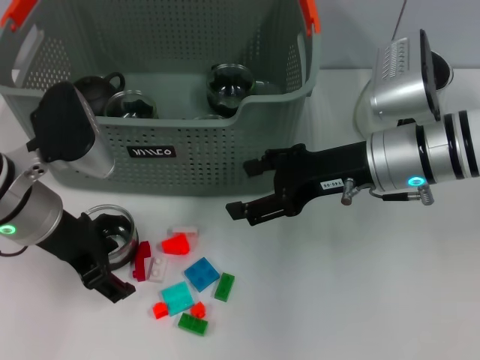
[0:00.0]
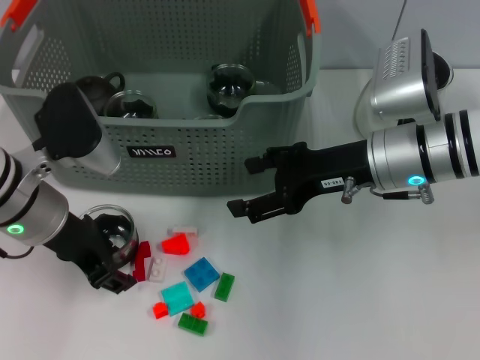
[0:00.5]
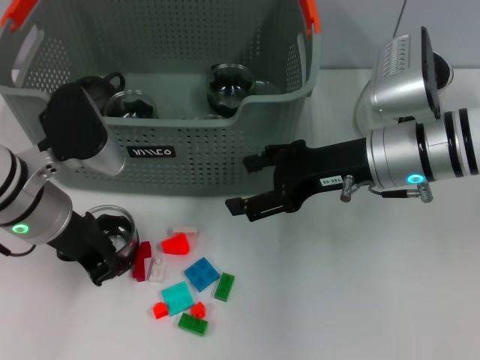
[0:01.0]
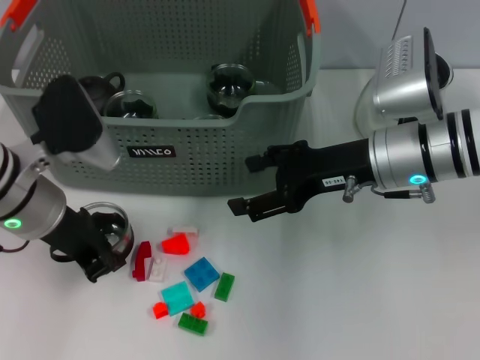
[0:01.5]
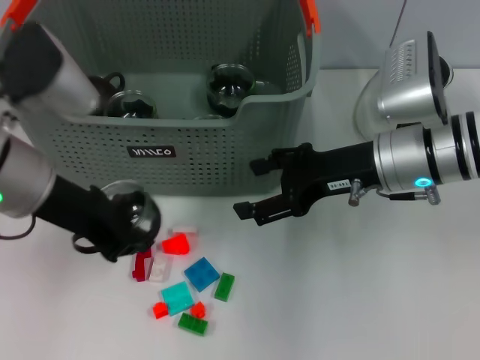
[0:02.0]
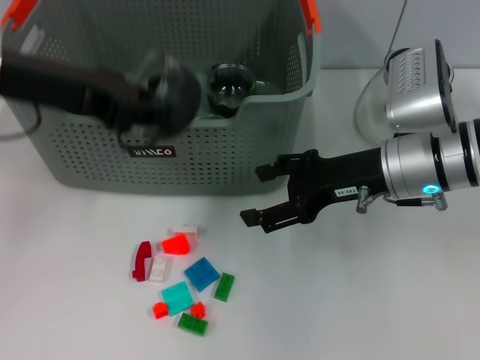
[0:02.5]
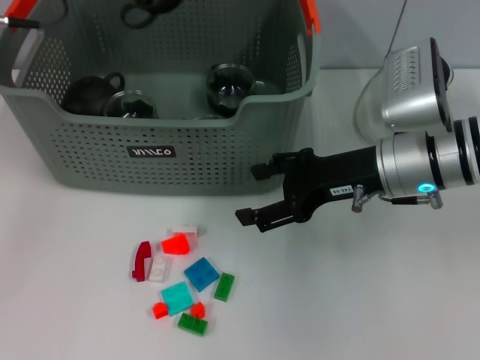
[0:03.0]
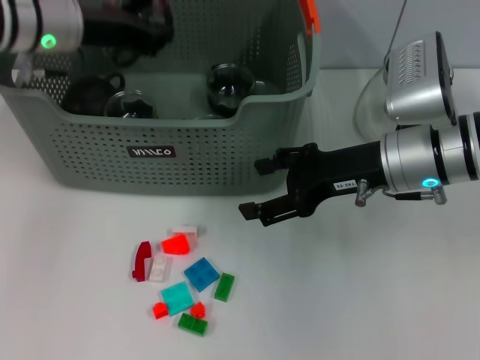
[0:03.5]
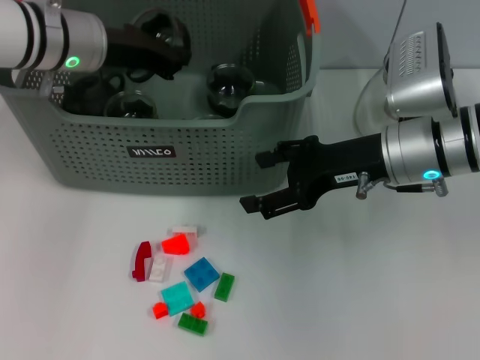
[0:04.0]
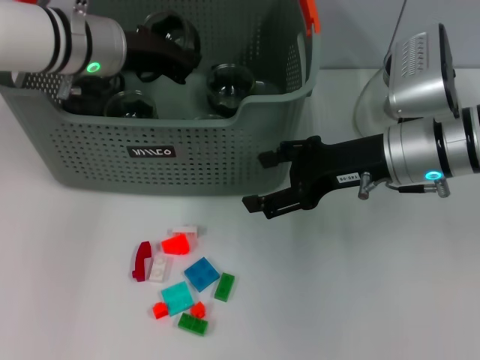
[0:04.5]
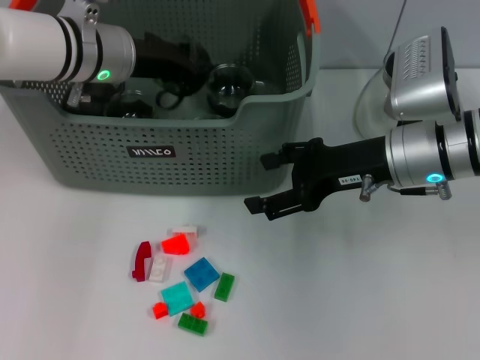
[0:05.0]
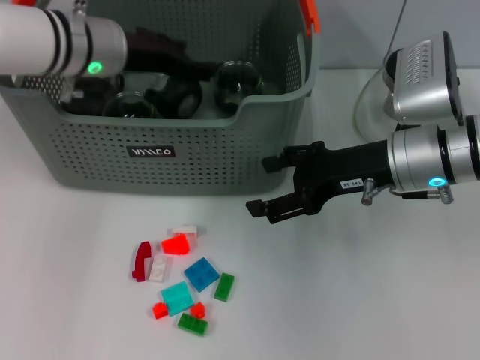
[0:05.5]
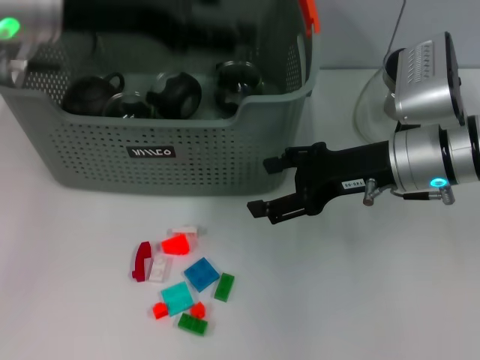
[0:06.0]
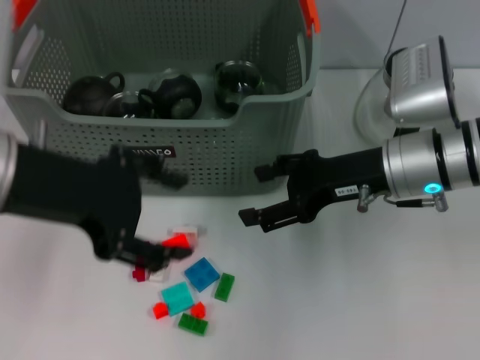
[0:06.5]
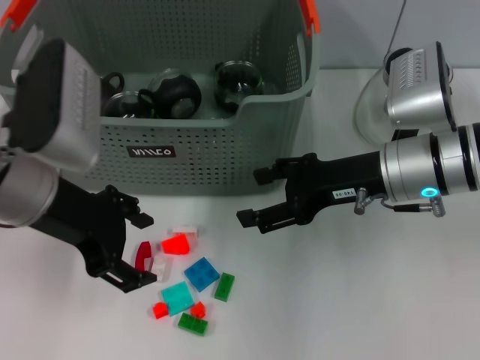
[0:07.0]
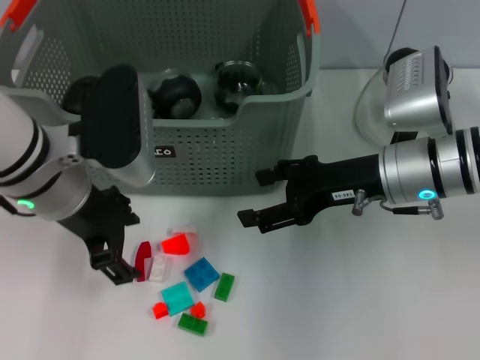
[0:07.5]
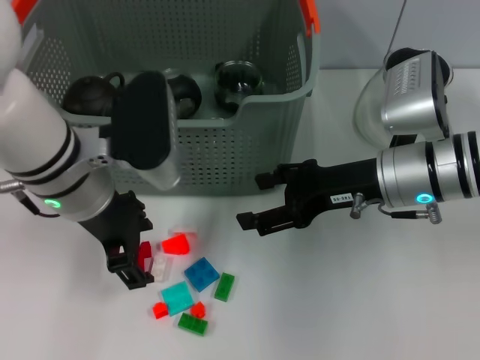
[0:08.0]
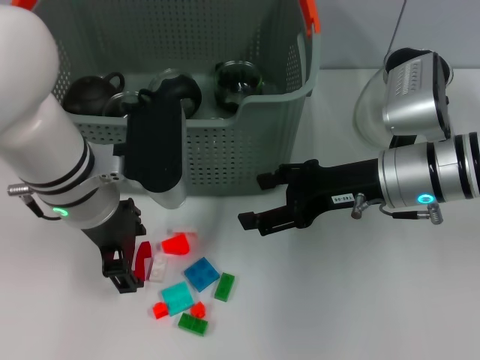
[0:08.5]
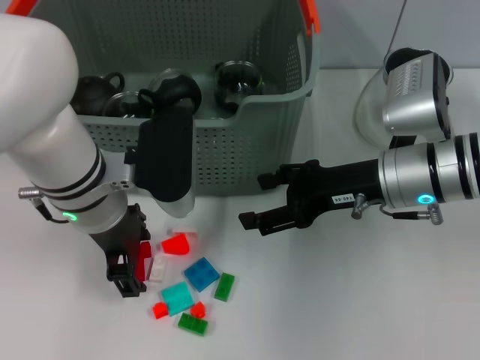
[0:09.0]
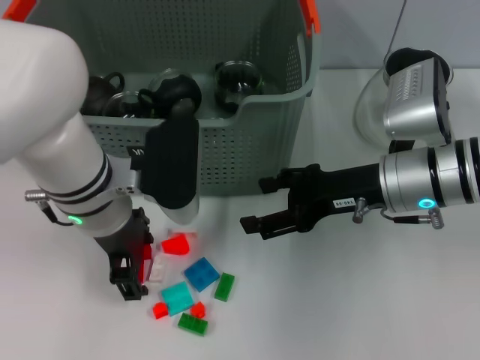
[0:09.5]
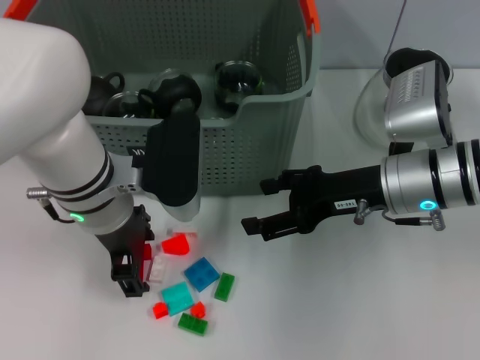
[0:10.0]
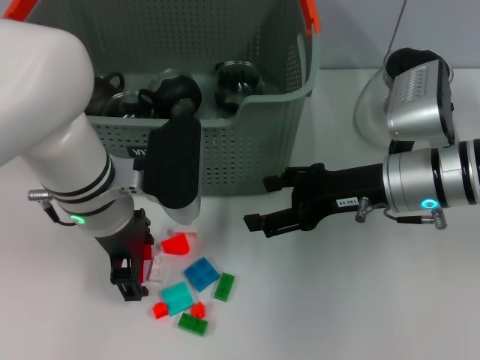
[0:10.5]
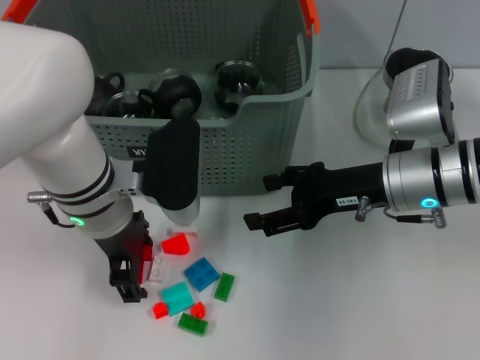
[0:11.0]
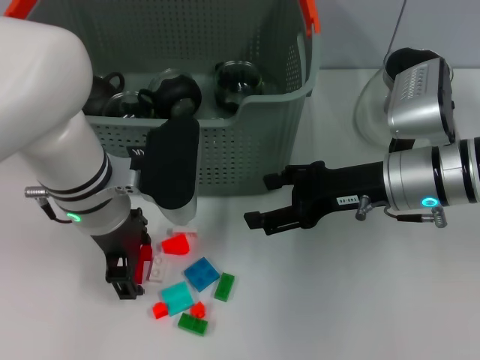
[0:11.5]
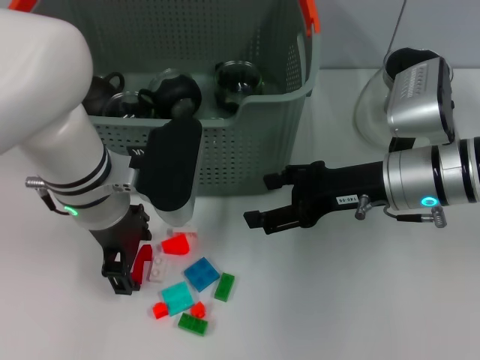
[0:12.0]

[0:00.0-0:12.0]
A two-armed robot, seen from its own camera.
Task of the whole recording: pick up the teacup on the table and place it into the storage bin, pick up the block on the table and place it into the storage bin.
Step, 0:01.5 to 0:05.5: Place the cup in the storage box with left gripper.
0:00.0 to 0:02.0: The left gripper travels upward by some 5 cm, and closes up.
0:02.0 to 0:04.0: The left gripper heads forward, covering some 15 cm.
0:04.0 to 0:06.0: The left gripper goes approximately 10 cm upward and backward, and opens its fingers.
0:06.0 to 0:08.0: The left gripper moves downward, roughly 10 cm.
0:10.0 to 0:12.0: The grippers stay close to where they were, moving slightly.

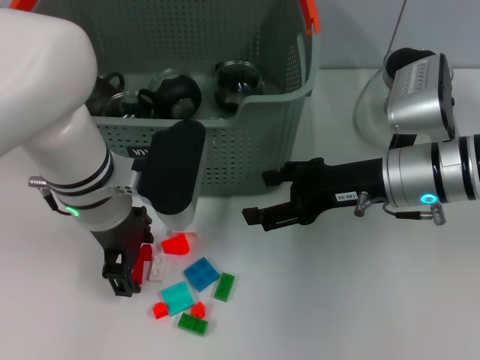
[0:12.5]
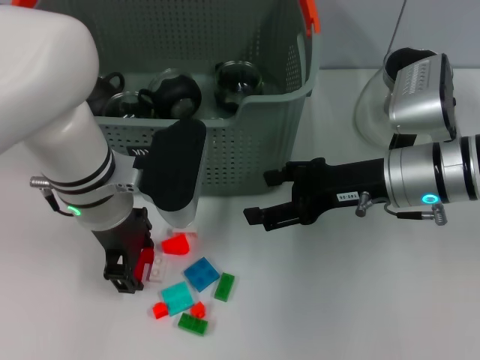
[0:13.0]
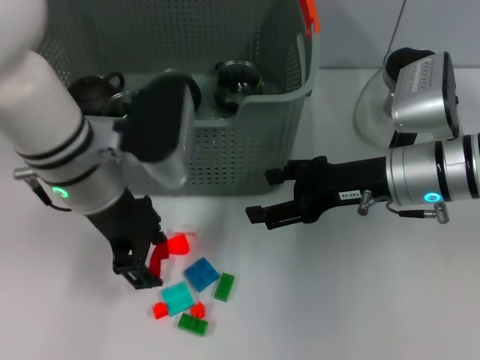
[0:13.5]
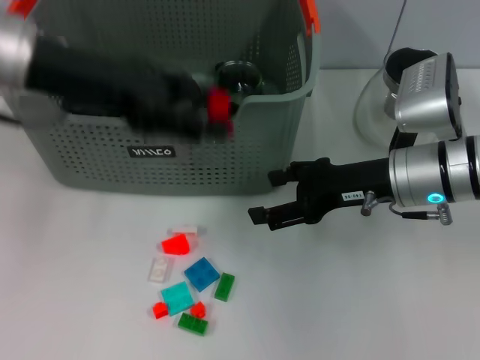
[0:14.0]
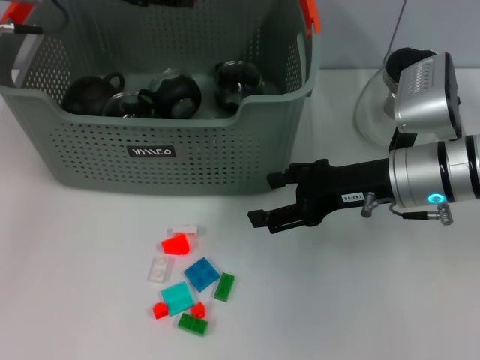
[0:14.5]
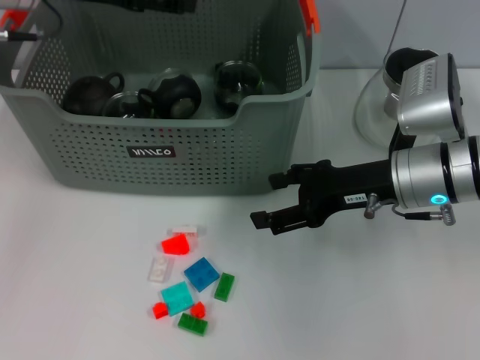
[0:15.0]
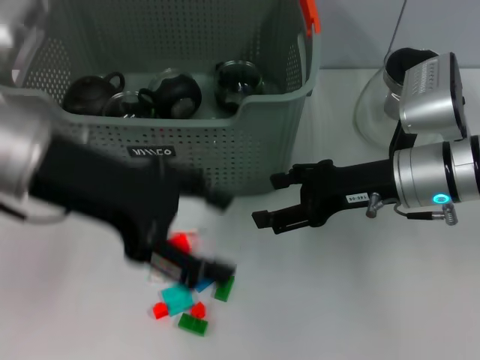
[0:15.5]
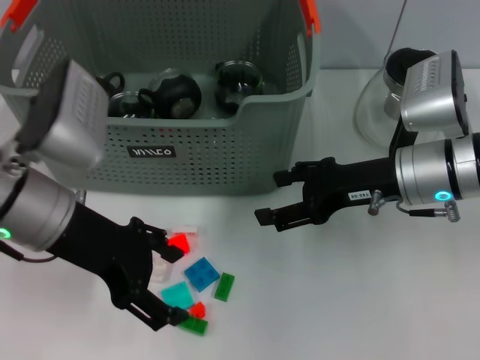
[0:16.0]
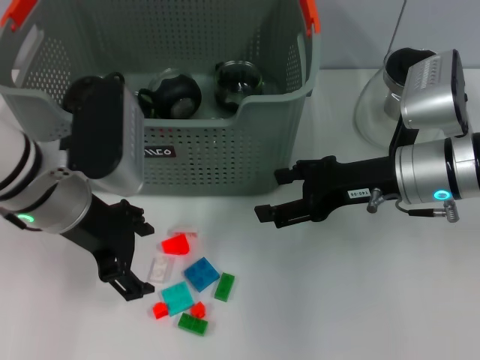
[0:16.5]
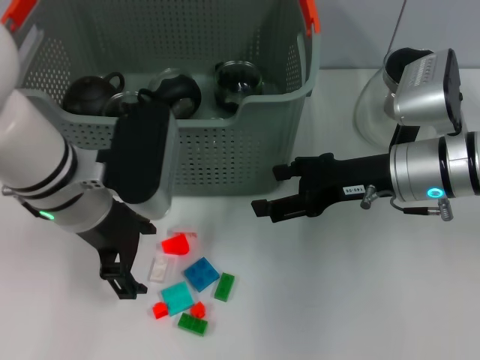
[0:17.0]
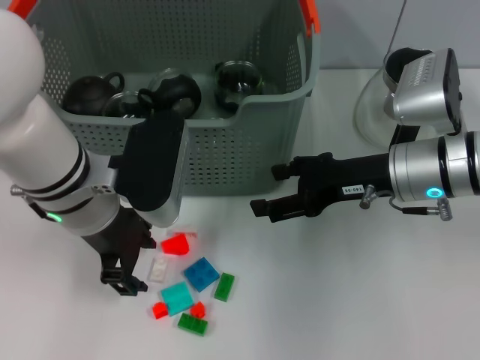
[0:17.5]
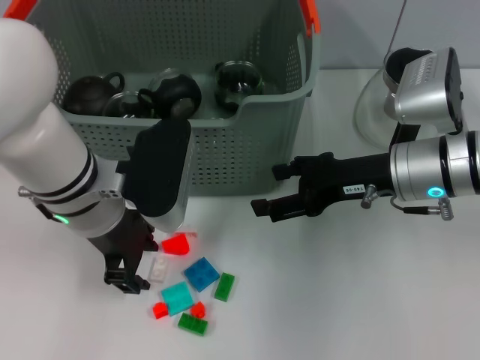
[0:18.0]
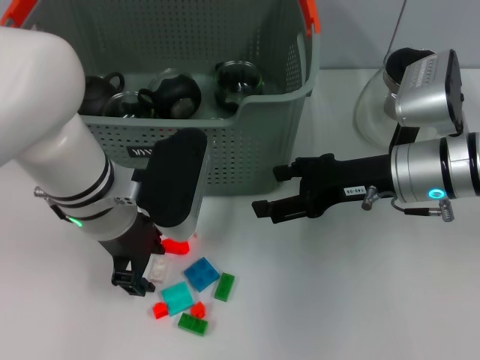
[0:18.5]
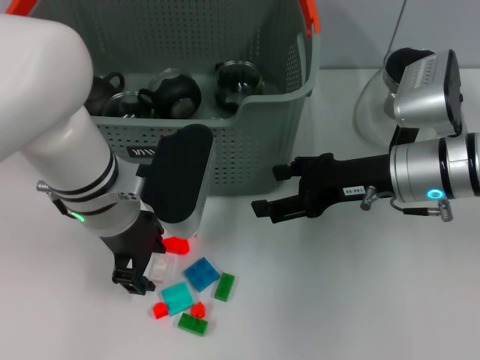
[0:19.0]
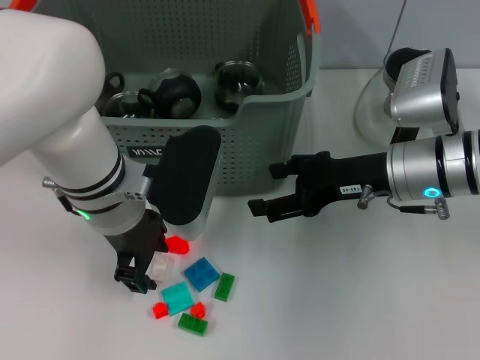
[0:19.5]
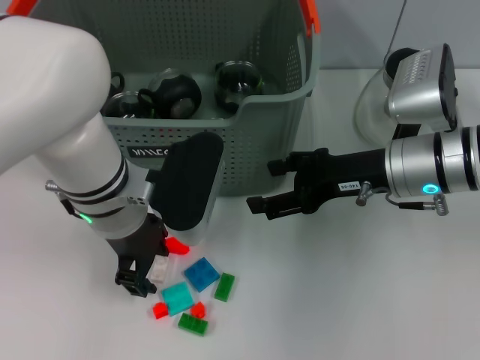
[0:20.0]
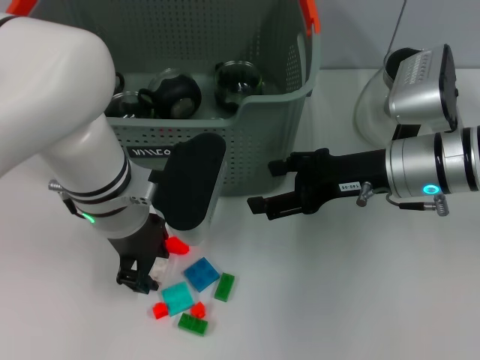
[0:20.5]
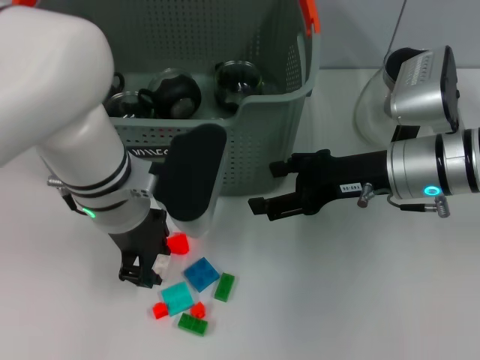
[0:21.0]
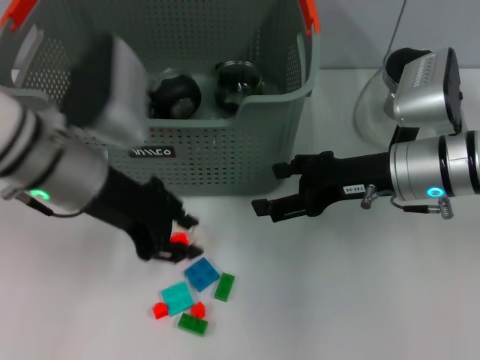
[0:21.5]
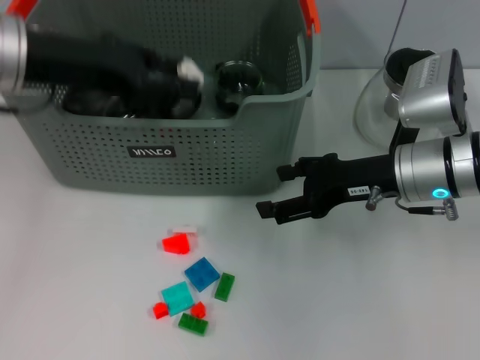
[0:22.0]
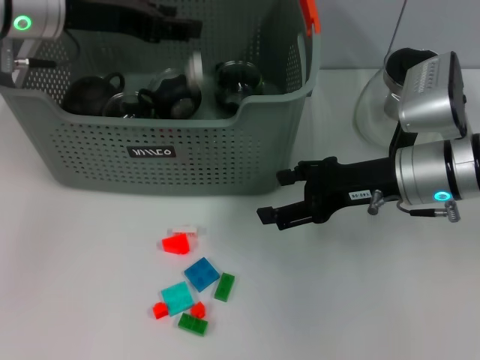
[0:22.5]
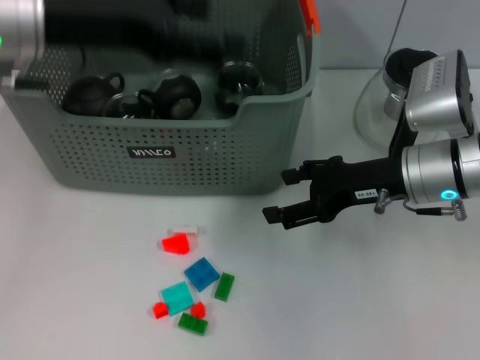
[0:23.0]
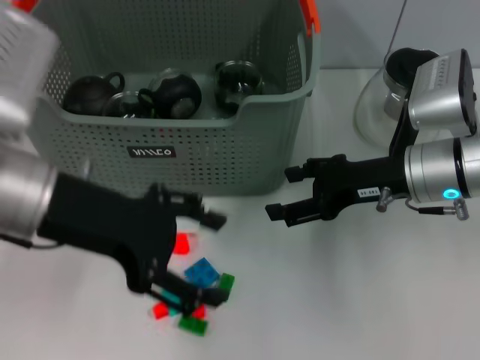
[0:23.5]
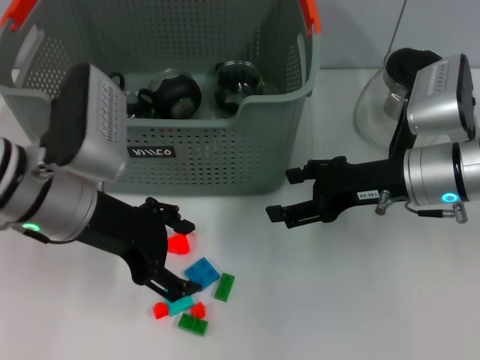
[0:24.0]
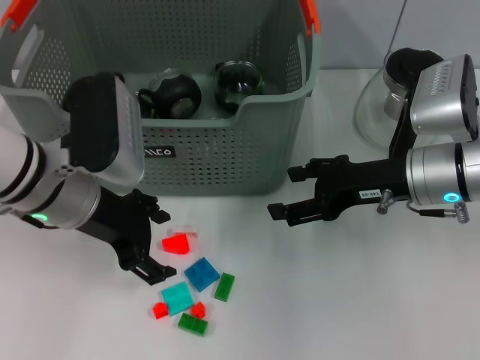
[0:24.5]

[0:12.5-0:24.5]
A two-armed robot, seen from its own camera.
Task of the whole recording: pick up the teacup on the table and place it into the storage bin, pick up the block on the table and place it into the storage bin.
Step, 0:13.5 to 0:14.5: Place the red block in the storage box with left gripper.
Step, 0:15.0 to 0:20.5: Grasp the white block with left gripper.
Step, 0:21.0 to 0:22.5: Place the white block in the storage box with left gripper.
0:12.5 to 0:14.5: The left gripper heads upward, forward and to the left, covering some 20 cm.
0:14.5 to 0:16.5: The left gripper goes some 15 cm backward and downward.
0:16.5 to 0:18.5: The left gripper moves roughly 5 cm, and closes.
0:18.5 to 0:20.5: The two grippers keep their place.
0:20.5 to 0:22.5: The left gripper shifts approximately 15 cm upward, to the left and forward.
0:22.5 to 0:24.5: The left gripper travels downward and backward by about 15 cm, and opens its fingers.

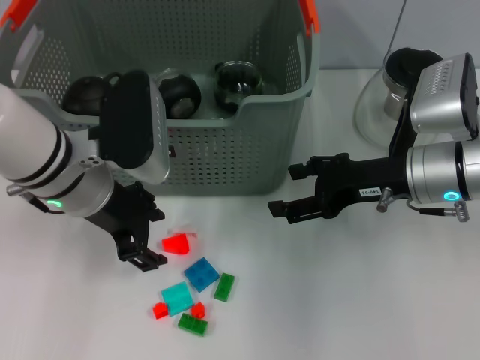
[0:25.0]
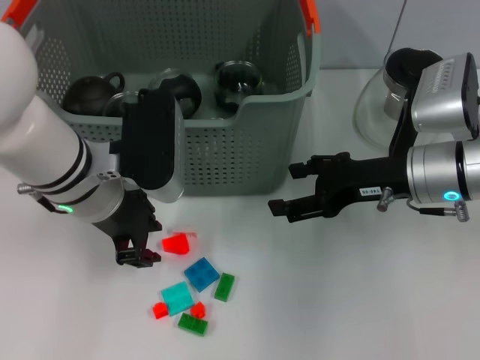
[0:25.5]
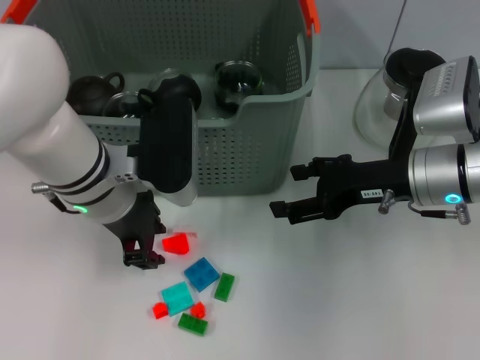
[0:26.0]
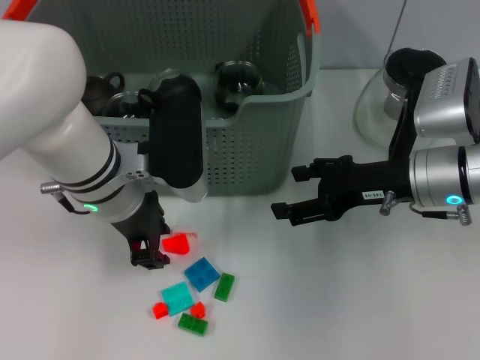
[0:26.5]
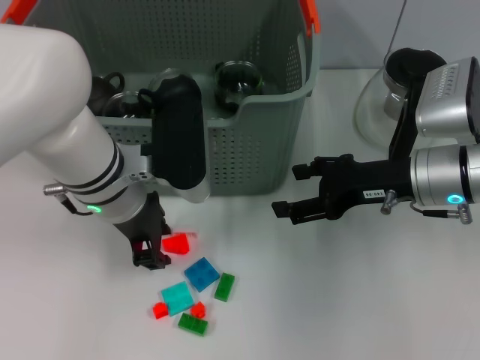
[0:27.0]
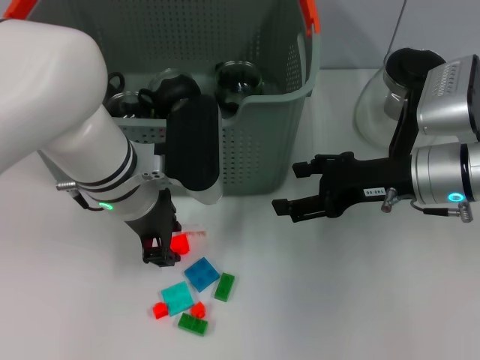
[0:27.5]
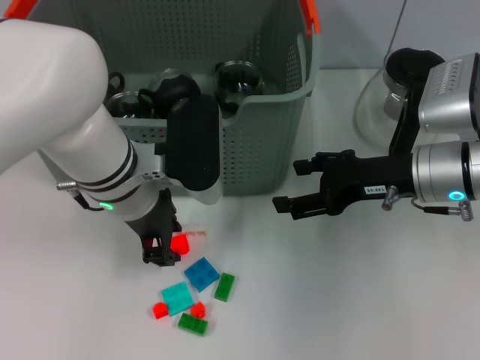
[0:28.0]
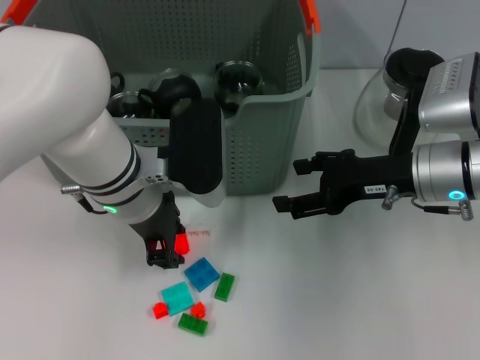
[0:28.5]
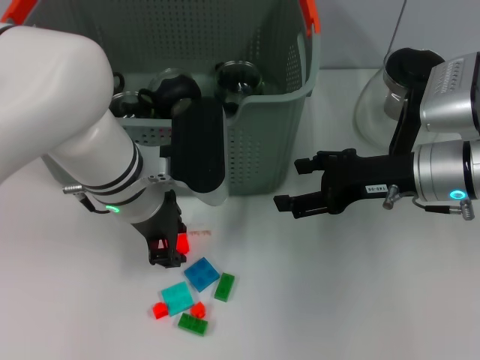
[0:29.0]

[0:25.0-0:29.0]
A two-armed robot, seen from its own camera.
Task of the whole recording: pick up the teacup on the table and place it into the storage bin, pick up the block on the table and place it into the storage bin.
0:25.0 to 0:27.0: The left gripper closes its fingers.
0:27.0 to 0:29.0: The grippers move only a little.
